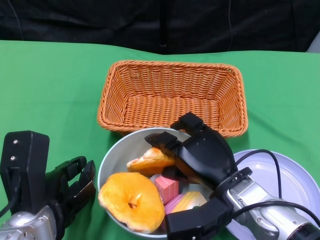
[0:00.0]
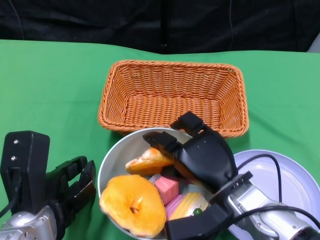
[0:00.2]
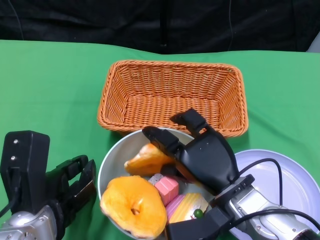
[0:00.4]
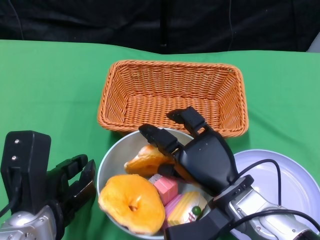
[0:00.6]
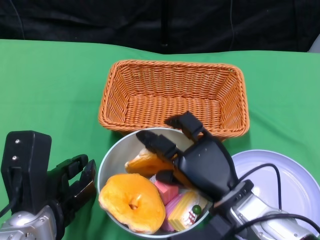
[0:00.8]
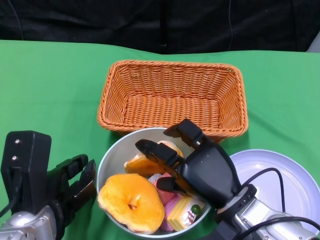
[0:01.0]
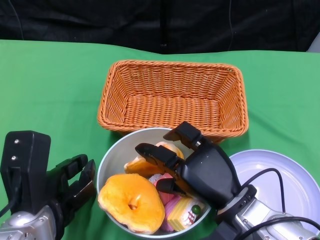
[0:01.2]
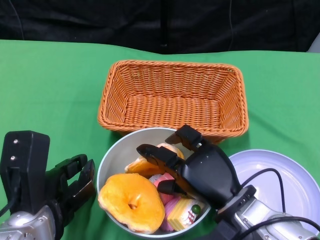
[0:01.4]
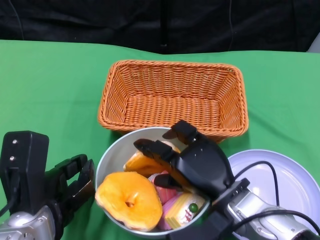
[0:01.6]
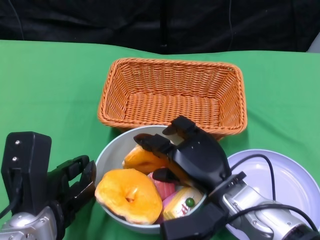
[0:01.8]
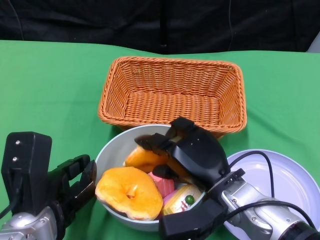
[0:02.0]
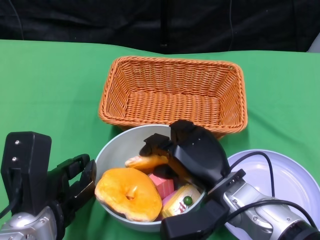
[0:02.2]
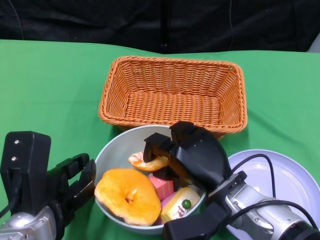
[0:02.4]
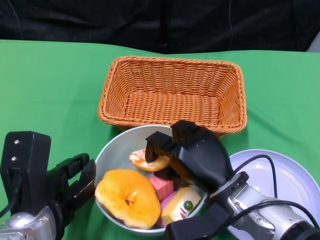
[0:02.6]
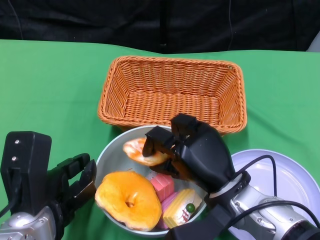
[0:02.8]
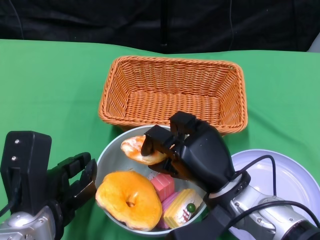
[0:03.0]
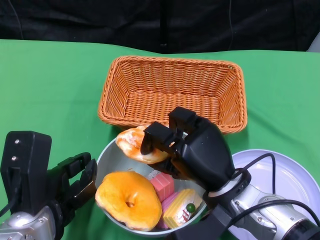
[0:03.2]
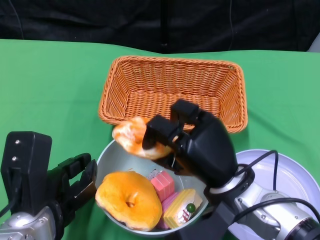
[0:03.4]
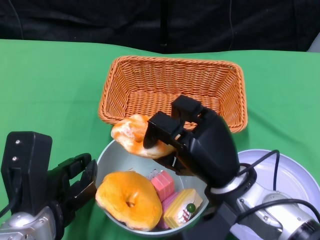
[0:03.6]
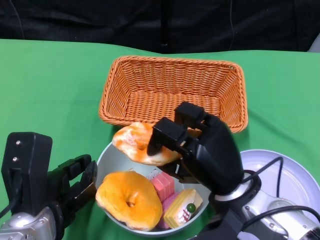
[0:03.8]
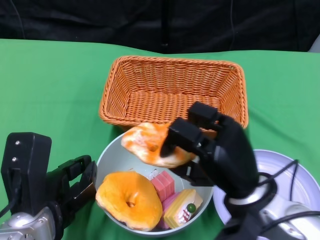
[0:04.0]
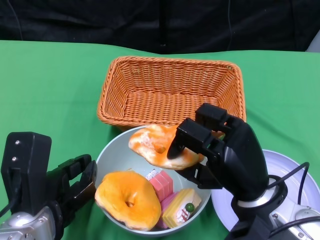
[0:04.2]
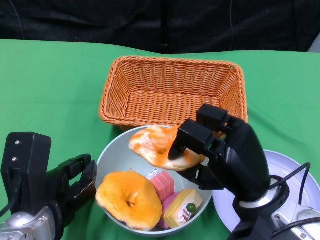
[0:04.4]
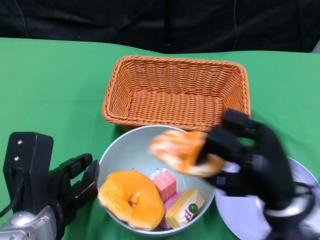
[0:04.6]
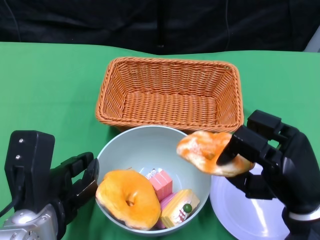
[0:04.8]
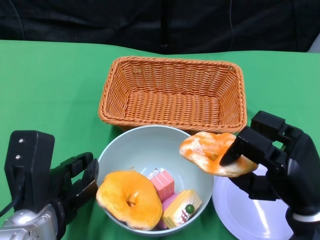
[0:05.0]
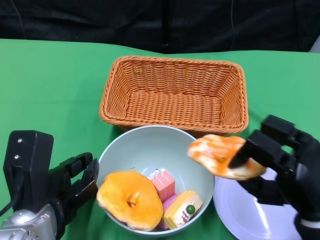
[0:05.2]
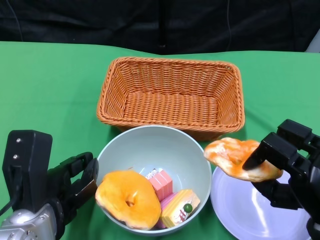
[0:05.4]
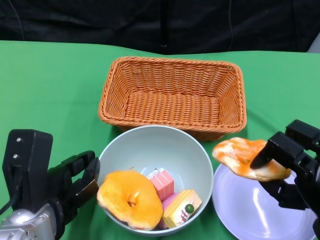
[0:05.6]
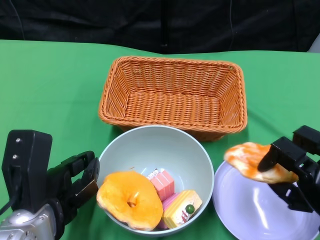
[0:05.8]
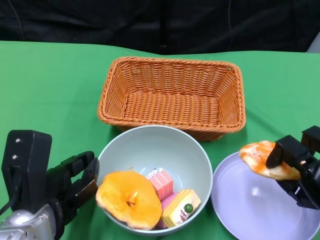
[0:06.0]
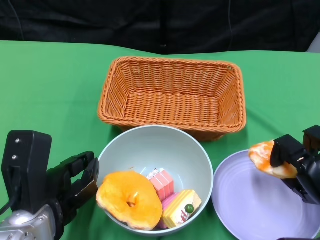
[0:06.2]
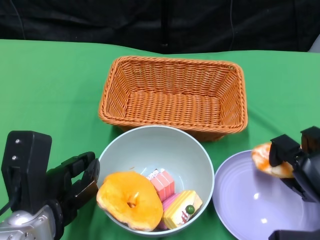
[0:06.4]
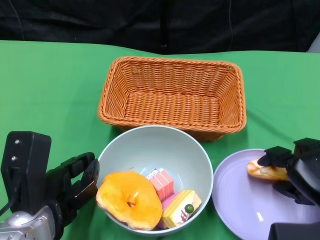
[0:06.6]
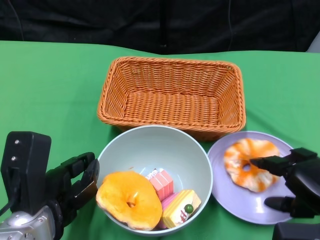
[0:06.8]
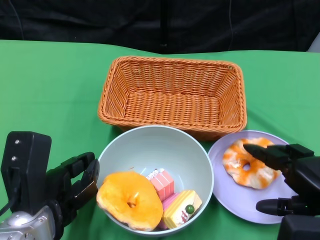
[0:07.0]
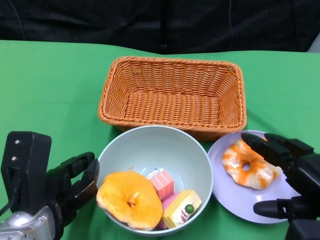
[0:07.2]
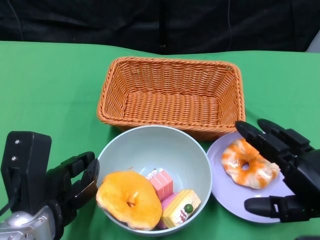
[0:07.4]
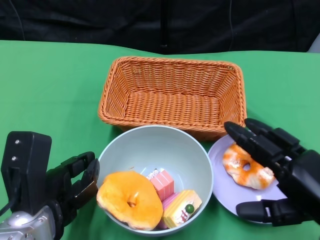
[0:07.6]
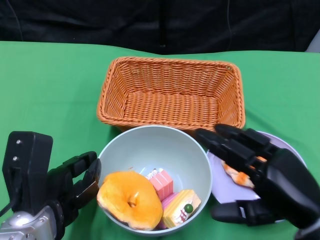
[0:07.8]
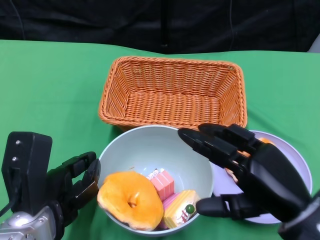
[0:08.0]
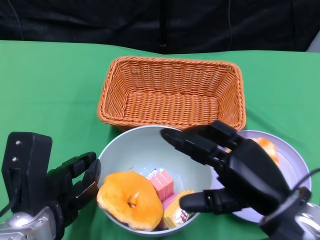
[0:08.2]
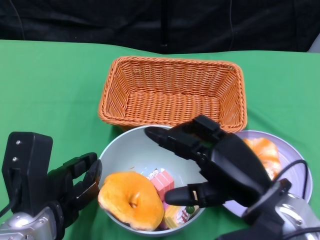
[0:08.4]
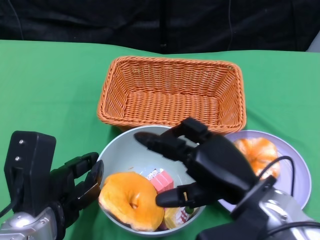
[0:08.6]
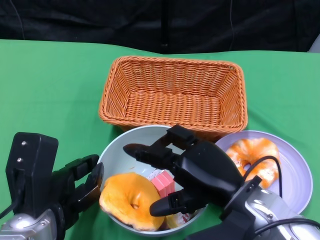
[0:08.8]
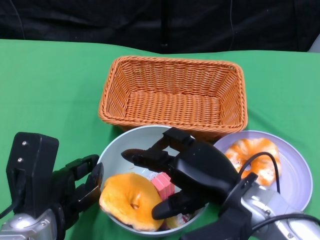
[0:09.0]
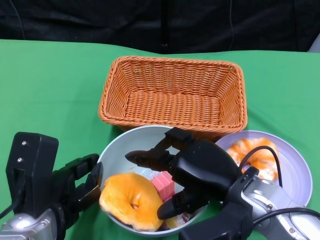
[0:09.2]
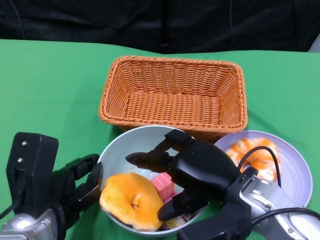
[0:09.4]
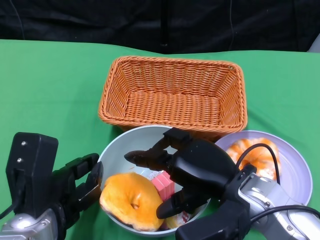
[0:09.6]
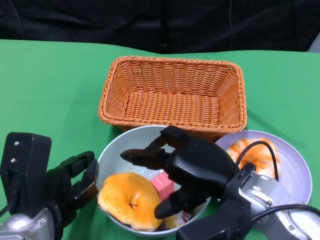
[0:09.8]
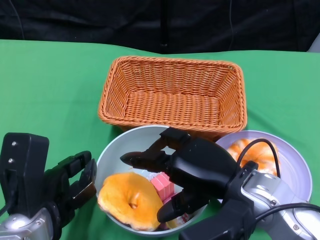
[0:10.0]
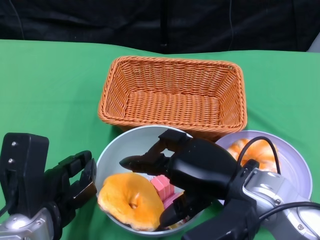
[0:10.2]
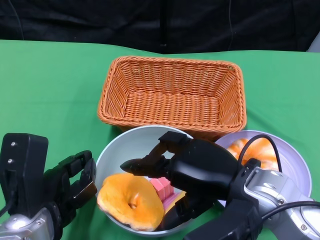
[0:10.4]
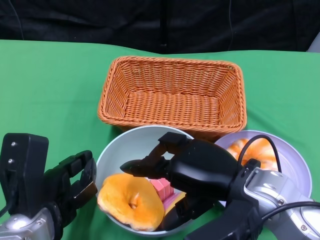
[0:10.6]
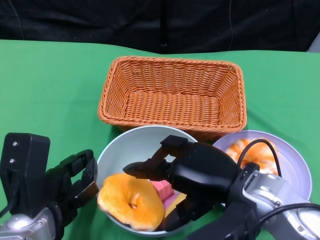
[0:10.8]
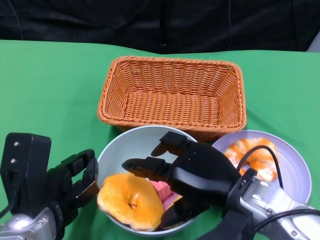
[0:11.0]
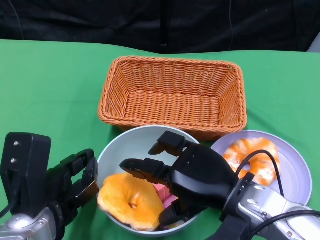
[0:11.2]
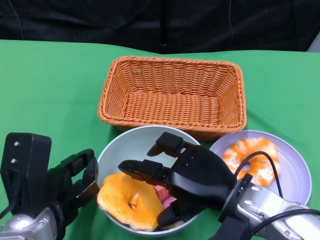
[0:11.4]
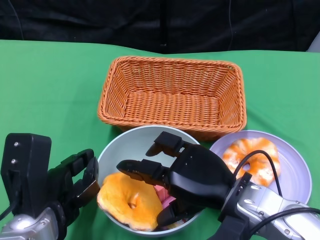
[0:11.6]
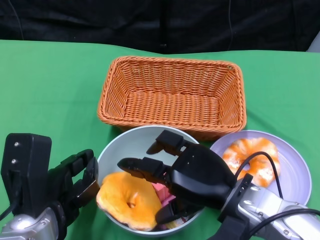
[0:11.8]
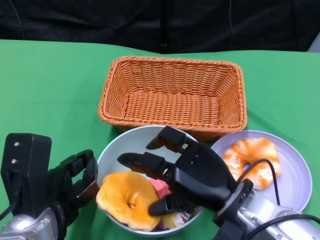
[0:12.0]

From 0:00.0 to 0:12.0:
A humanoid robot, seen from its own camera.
Step, from 0:00.0 to 0:07.2: Pick up the bread with the right gripper and place it on the plate.
From 0:00.0 to 0:01.6: The hands make only small movements.
From 0:01.6 to 0:03.0: The hands make only small movements.
From 0:03.0 to 0:04.4: The right hand ends up approximately 5 cm from where it was.
From 0:04.4 to 0:06.0: The right hand travels to the right by approximately 10 cm.
From 0:06.0 to 0:07.6: The right hand shifts some 5 cm upward.
From 0:07.6 to 0:09.0: The right hand moves to the left, about 10 cm.
From 0:09.0 to 0:10.4: The hands move only a little.
From 0:10.4 to 0:12.0: The right hand moves downward, roughly 5 cm.

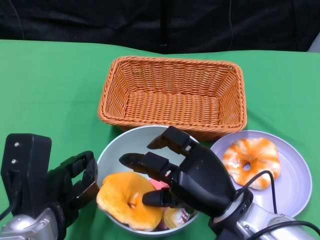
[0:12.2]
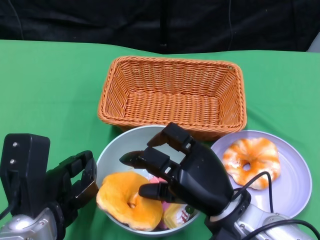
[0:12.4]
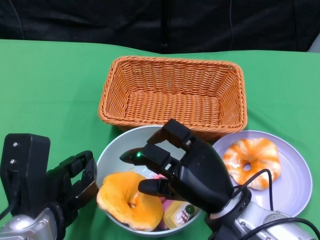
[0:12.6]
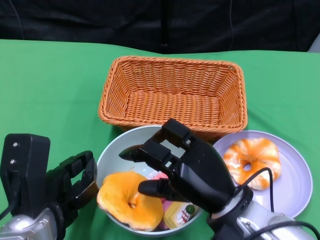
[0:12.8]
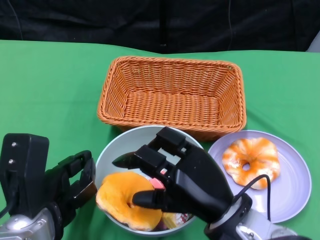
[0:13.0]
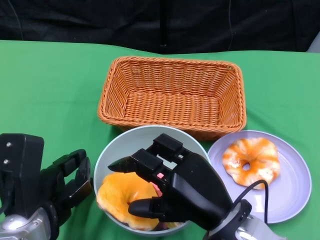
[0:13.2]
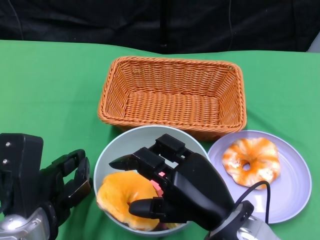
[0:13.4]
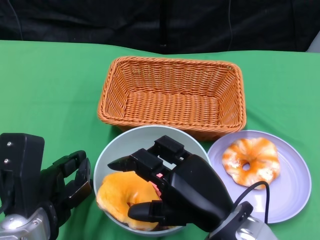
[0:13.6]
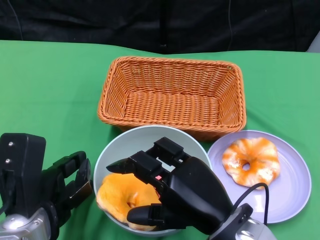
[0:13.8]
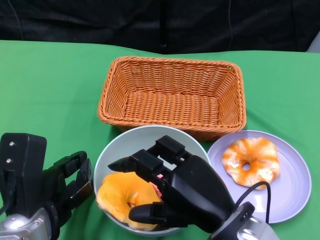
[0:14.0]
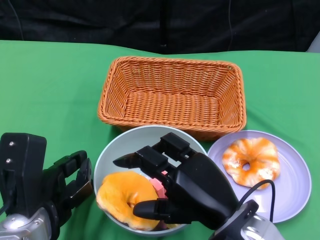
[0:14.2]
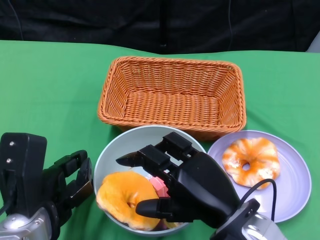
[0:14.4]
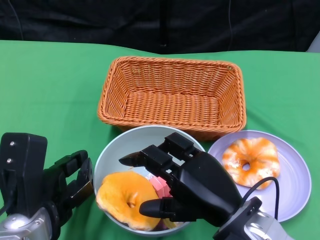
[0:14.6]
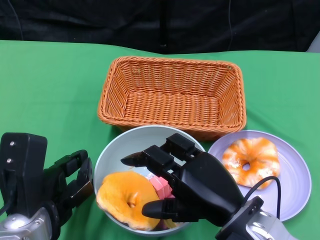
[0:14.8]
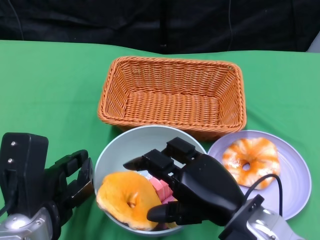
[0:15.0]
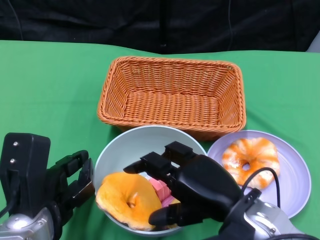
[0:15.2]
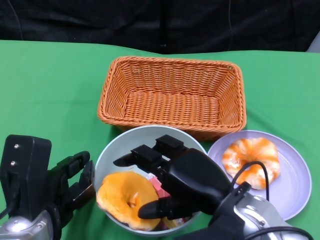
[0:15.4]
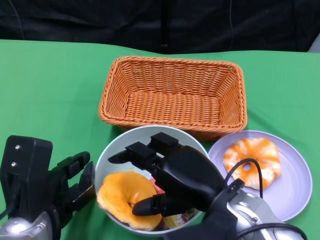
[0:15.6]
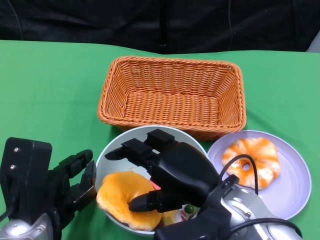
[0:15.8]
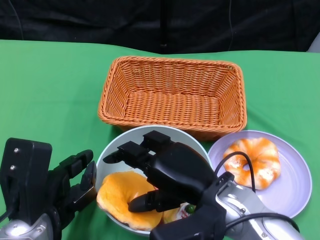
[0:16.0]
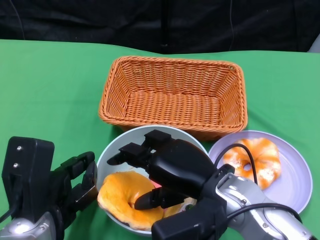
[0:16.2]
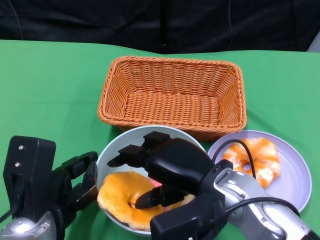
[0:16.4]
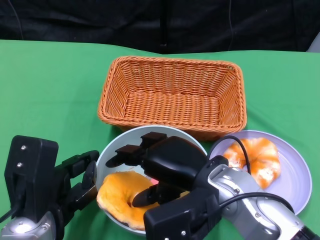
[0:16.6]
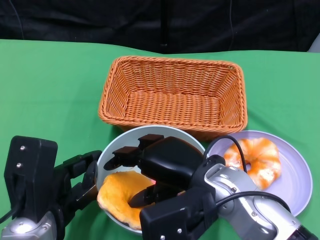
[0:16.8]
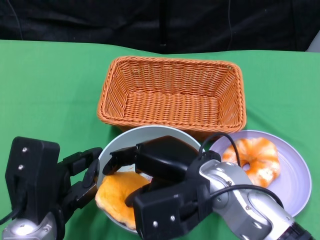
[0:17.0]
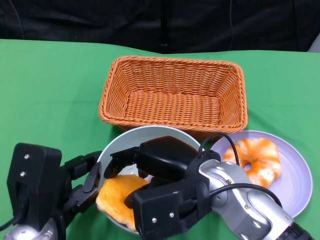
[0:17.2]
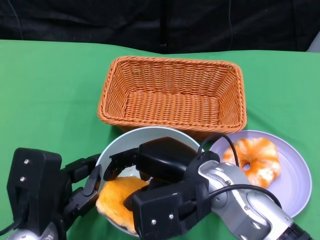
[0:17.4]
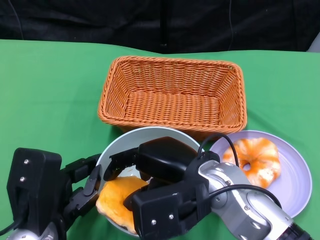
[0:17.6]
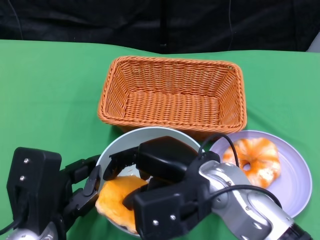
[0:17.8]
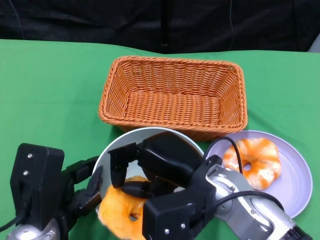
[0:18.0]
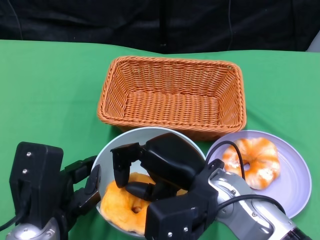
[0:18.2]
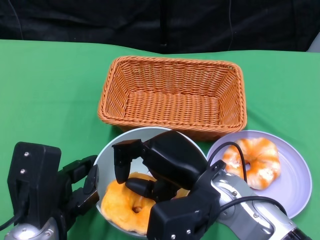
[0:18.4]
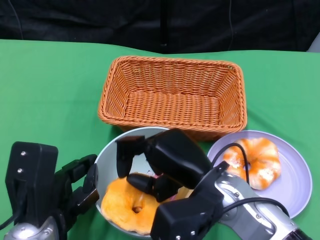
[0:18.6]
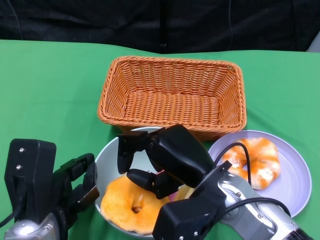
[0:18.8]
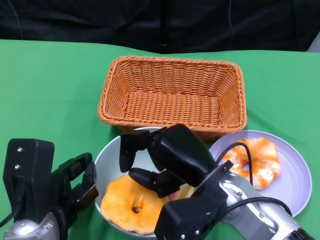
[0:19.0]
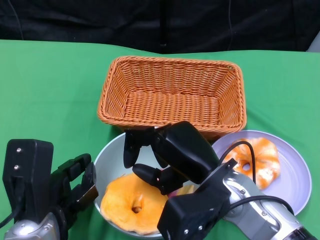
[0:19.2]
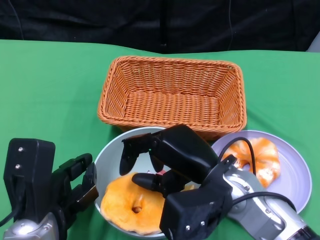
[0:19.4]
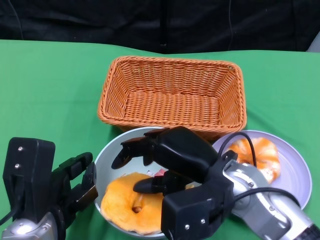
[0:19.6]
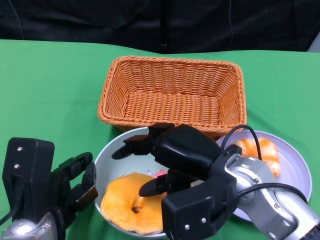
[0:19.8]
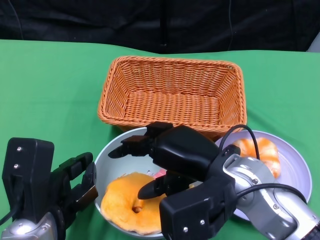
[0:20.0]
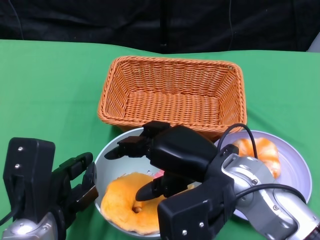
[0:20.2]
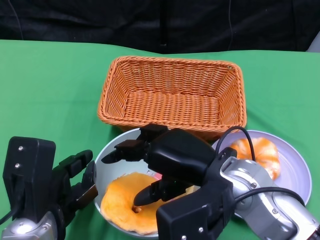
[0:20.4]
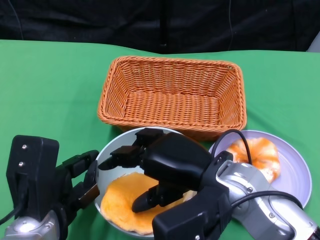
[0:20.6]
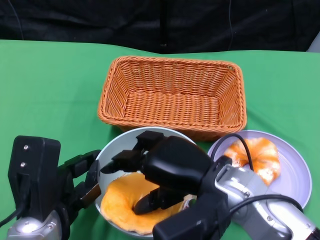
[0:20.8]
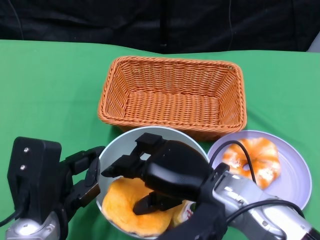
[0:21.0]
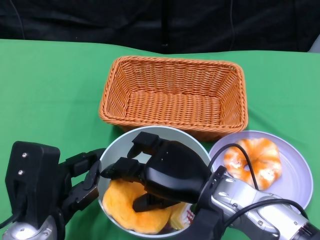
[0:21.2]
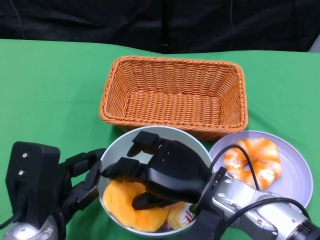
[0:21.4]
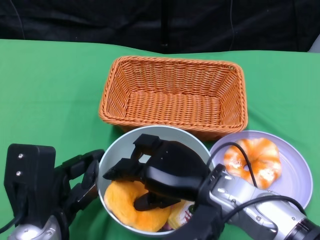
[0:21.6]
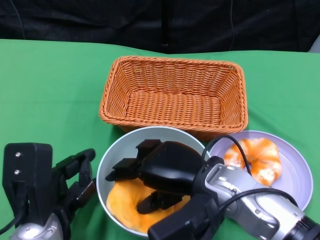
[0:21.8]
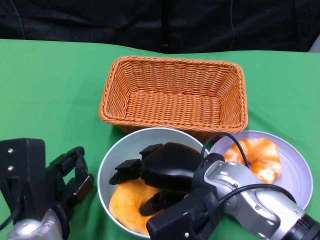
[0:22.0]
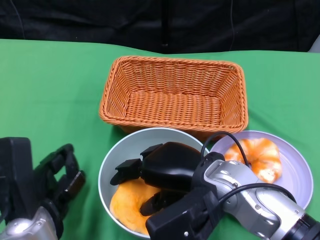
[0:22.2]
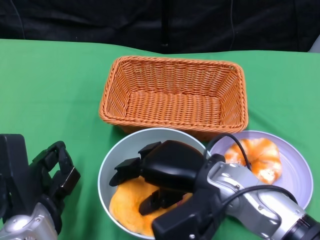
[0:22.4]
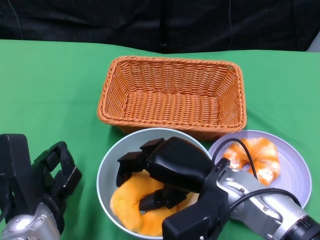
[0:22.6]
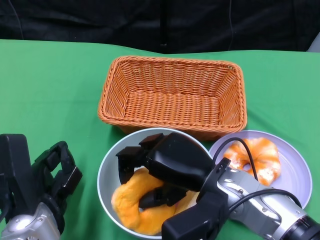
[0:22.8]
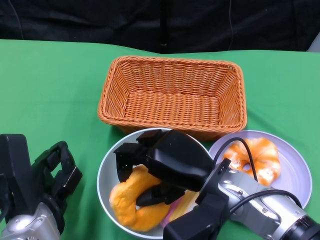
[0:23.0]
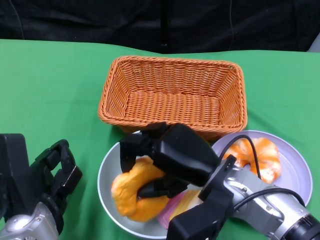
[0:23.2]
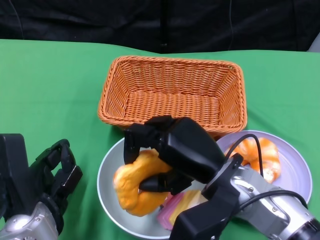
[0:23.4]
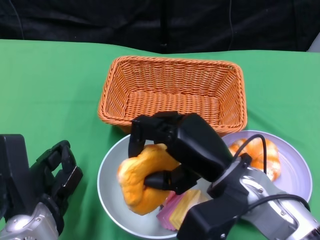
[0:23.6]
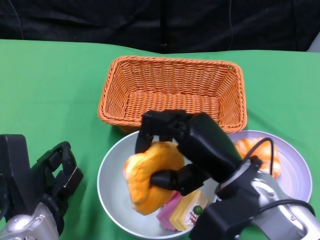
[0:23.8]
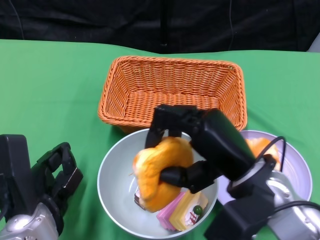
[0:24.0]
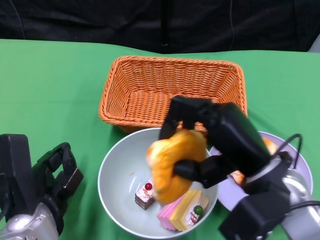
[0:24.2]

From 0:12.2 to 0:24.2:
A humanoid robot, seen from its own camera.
From 0:12.2 to 0:13.8: The right hand changes place by approximately 5 cm.
From 0:13.8 to 0:15.2: The hands make only small movements.
From 0:15.2 to 0:16.6: The right hand moves about 5 cm.
From 0:16.6 to 0:18.2: The hands move only a little.
From 0:18.2 to 0:19.8: There are only small adjustments of the hands.
From 0:22.6 to 0:24.2: The right hand is displaced to the right by roughly 5 cm.
